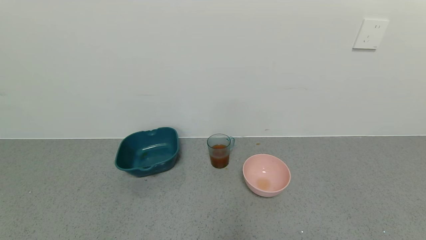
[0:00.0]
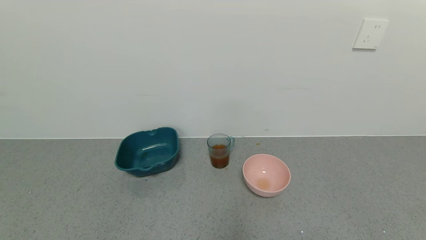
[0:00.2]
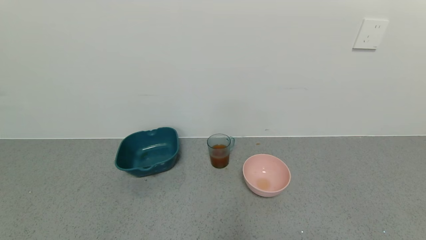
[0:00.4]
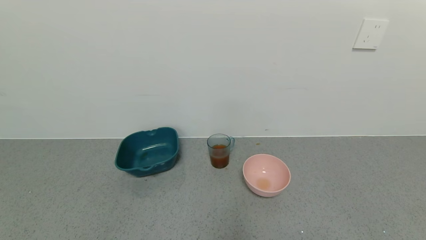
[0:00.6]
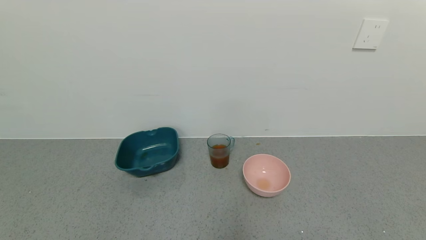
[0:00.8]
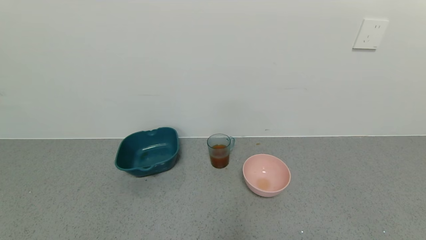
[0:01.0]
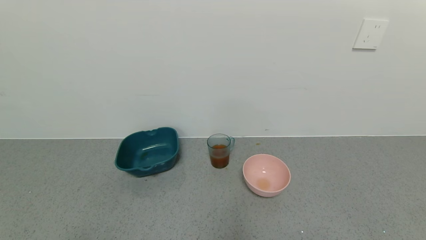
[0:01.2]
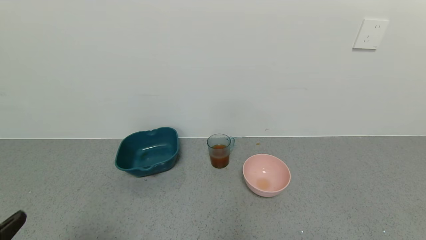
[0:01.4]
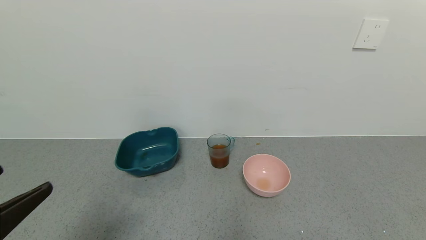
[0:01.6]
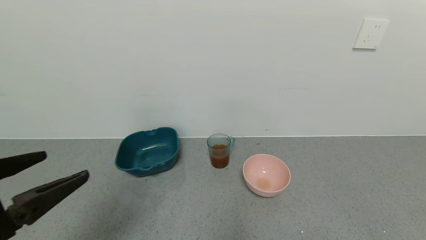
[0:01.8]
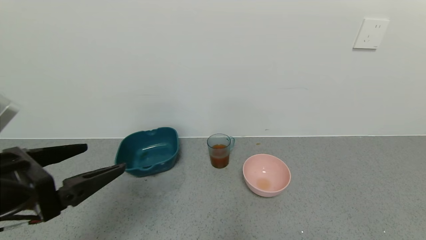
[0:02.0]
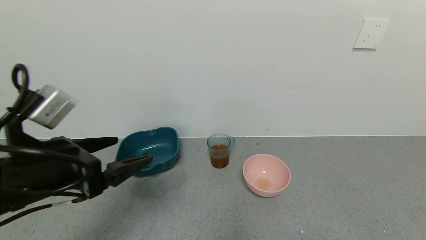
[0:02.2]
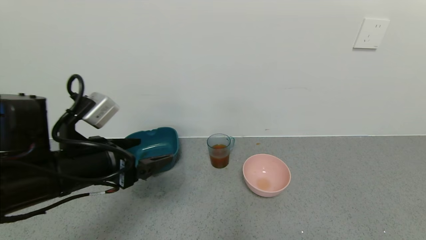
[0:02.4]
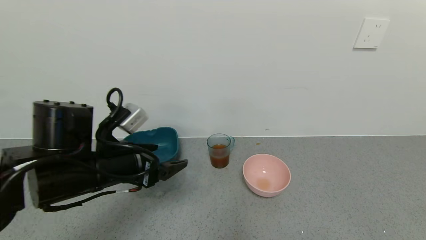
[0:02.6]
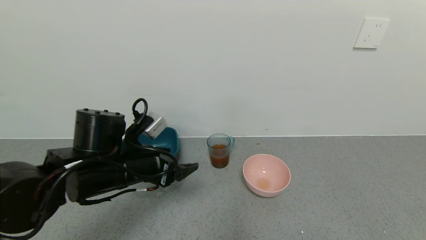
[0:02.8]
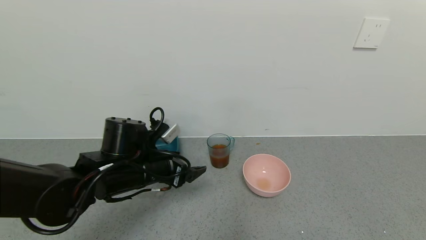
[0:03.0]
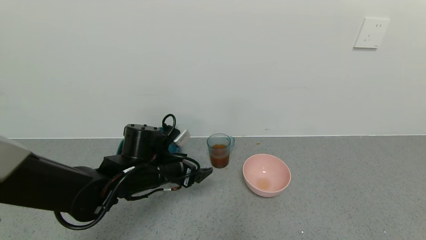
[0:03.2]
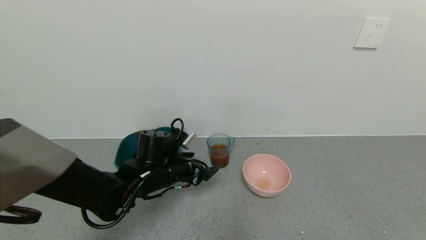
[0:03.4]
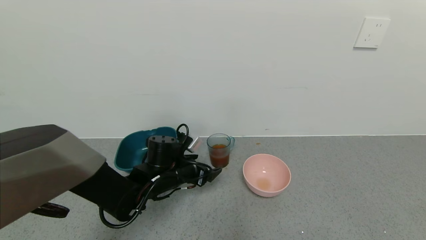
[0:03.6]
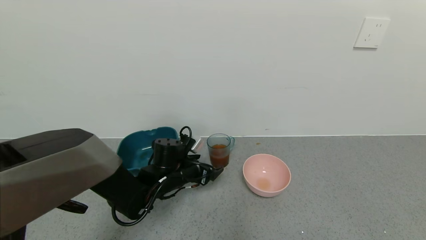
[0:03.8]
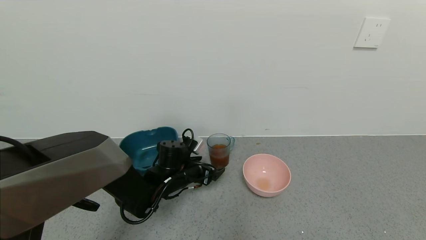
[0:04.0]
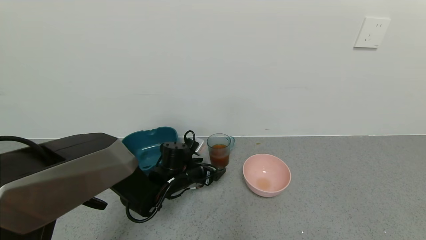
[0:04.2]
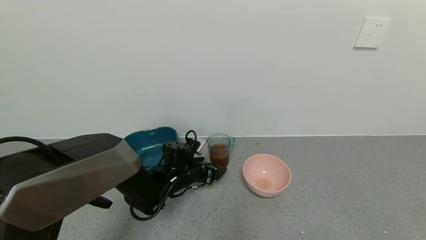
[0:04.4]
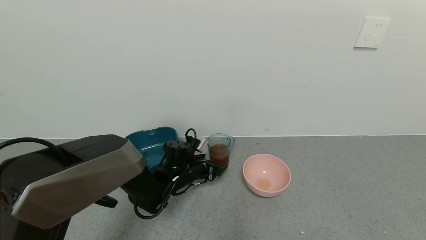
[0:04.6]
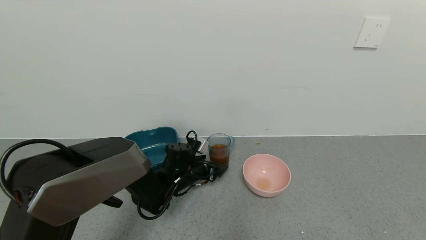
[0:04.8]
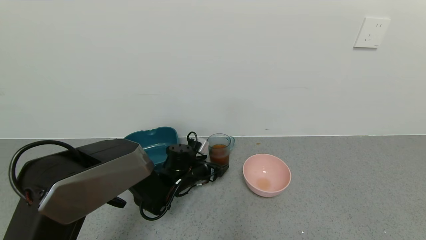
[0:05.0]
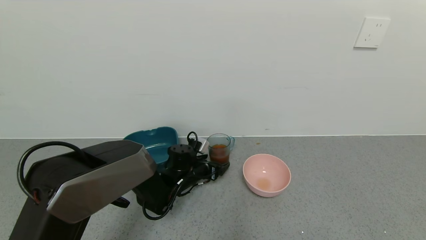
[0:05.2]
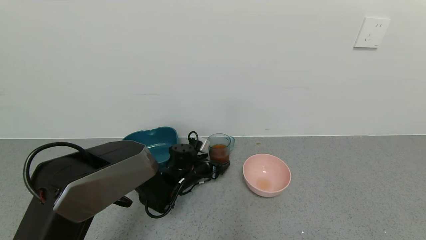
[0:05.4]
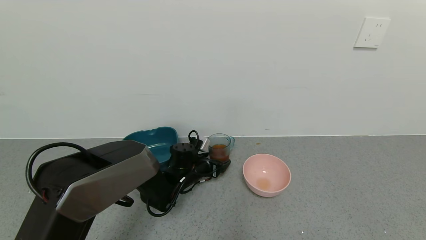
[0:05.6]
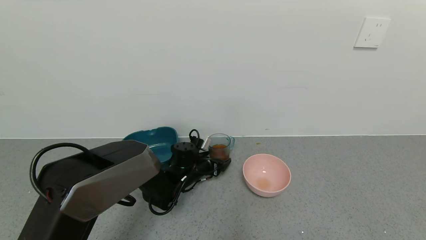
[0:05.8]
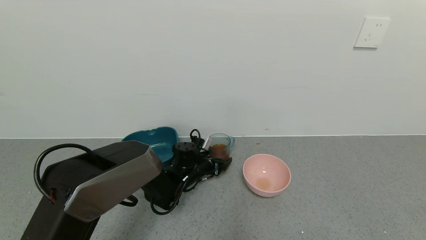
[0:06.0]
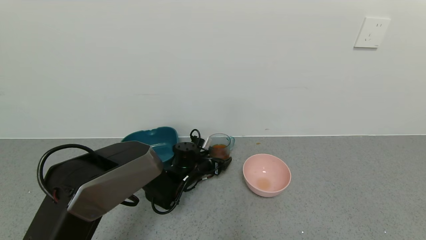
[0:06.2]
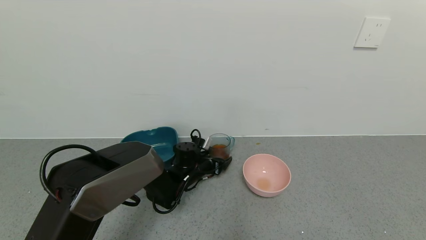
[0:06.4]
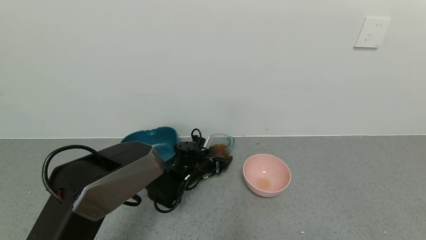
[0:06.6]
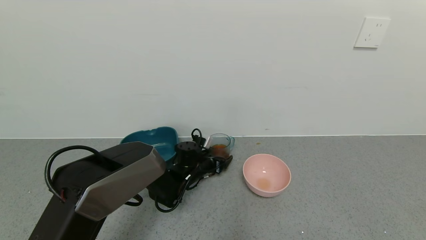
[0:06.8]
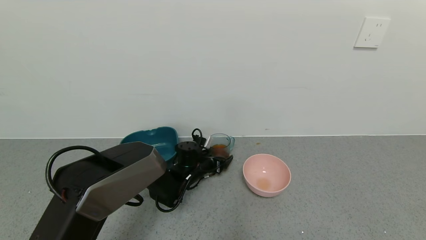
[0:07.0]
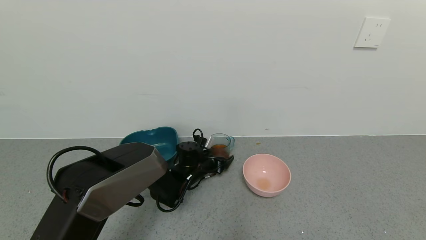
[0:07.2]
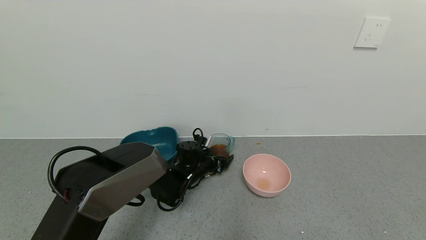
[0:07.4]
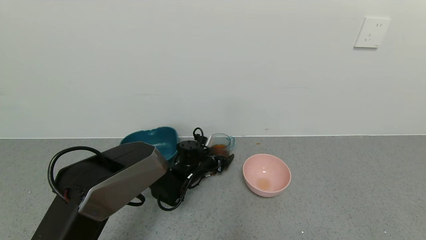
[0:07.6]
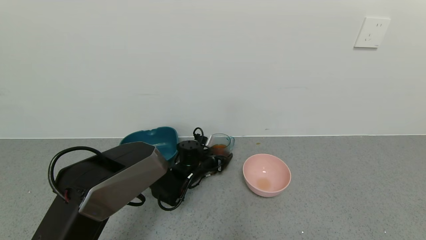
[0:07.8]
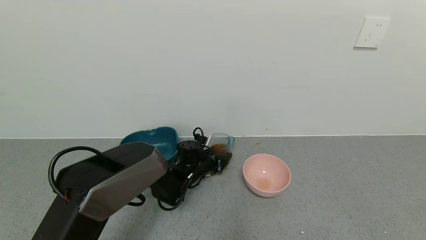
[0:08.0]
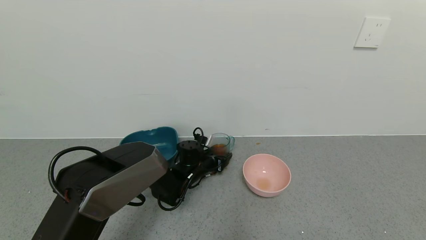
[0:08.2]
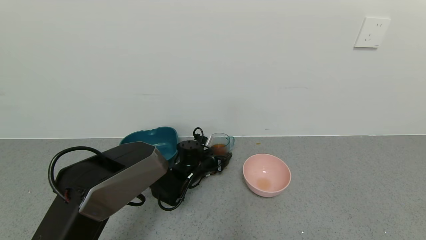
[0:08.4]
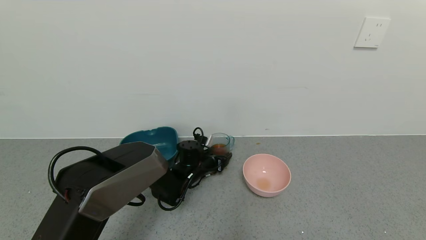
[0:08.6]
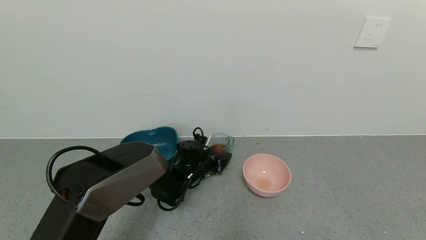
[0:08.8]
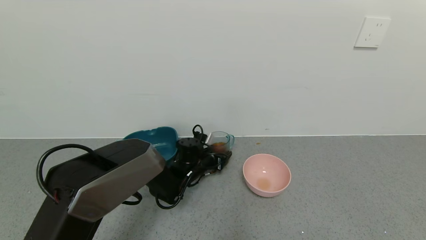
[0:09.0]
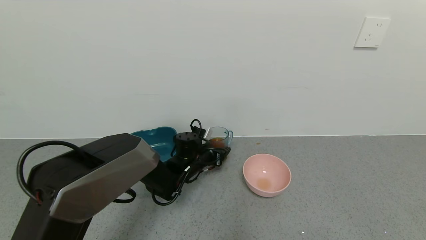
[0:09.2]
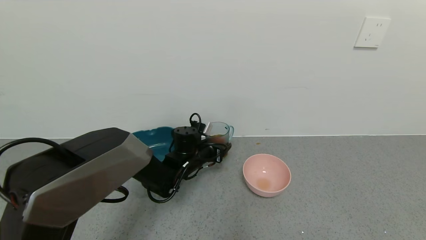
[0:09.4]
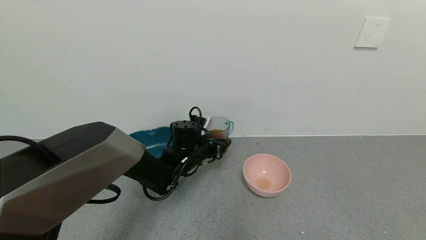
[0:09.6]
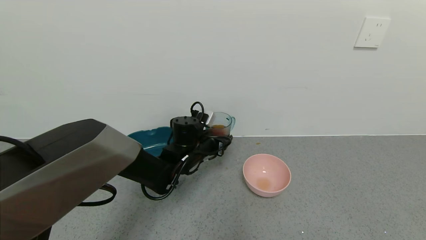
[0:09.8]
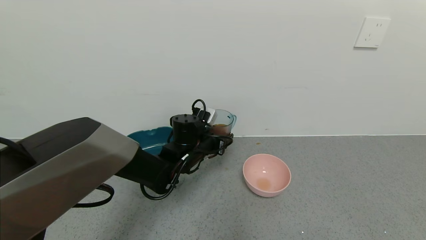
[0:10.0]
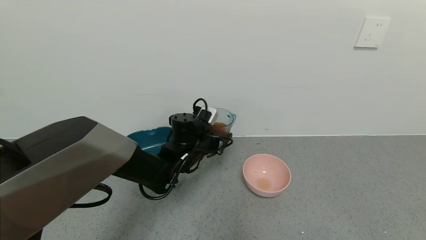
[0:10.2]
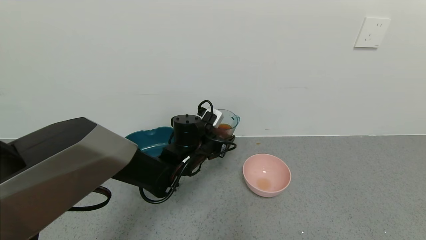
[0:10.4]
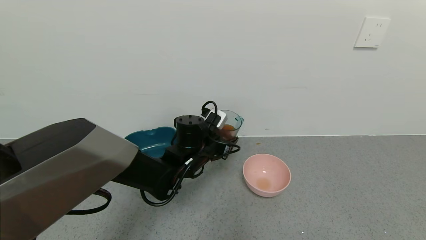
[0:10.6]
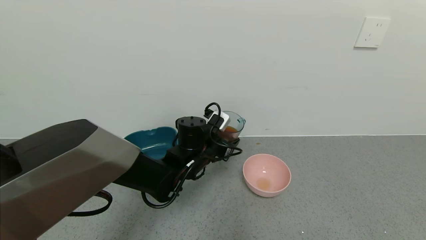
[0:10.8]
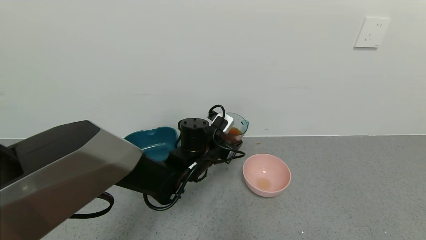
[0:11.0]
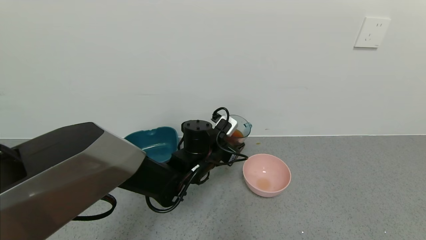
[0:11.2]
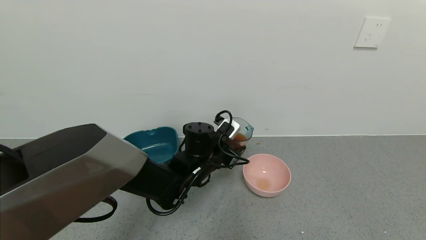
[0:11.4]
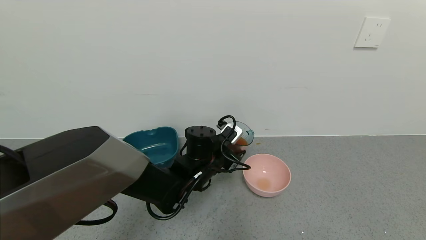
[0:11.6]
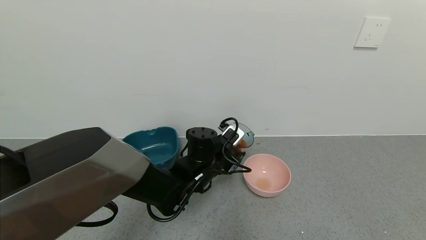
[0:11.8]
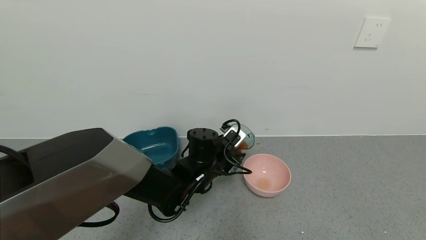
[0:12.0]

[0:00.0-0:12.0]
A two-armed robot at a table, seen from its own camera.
Task of the whole recording: use a gripper to pick up the cup and pour the liquid into a bowl or tray.
Step, 0:00.0 to 0:09.4: Pick up blue cup filled with tea with left gripper.
0:00.0 to 0:01.6: The left gripper goes some 20 cm upward and forward.
0:01.6 to 0:03.0: The left gripper shifts roughly 25 cm forward, to the right and downward.
0:03.0 to 0:04.4: The left gripper heads downward and forward, covering about 15 cm.
0:04.4 to 0:06.0: There are only small adjustments of the grippers.
0:06.0 to 0:07.6: The grippers stay close to where they were, moving slightly.
0:07.6 to 0:09.0: The left gripper closes.
0:09.0 to 0:10.4: The left gripper heads upward, covering approximately 10 cm.
0:10.4 to 0:12.0: The grippers stay close to where they were, moving slightly.

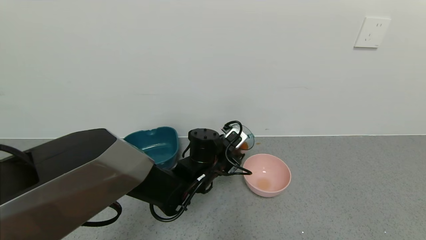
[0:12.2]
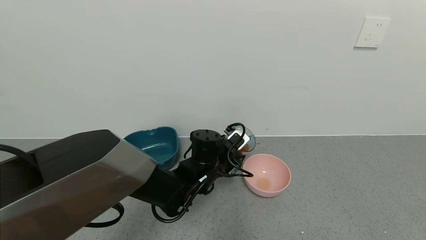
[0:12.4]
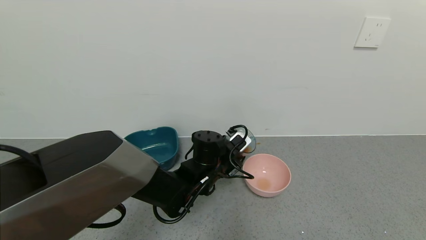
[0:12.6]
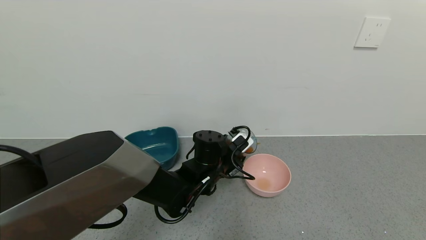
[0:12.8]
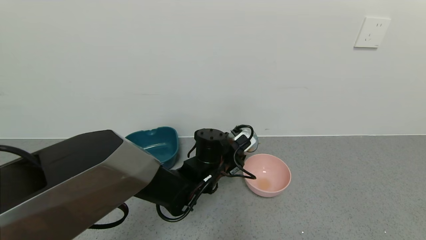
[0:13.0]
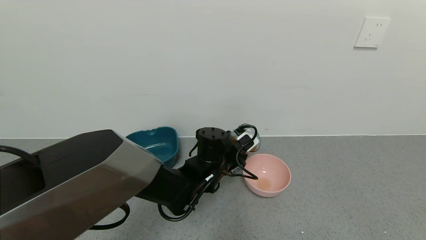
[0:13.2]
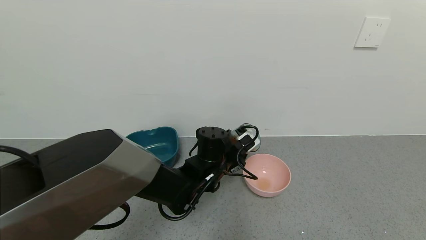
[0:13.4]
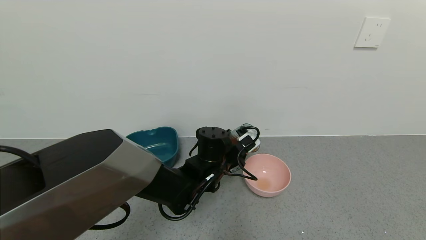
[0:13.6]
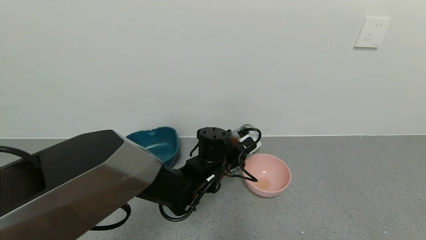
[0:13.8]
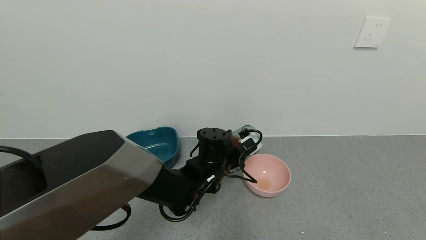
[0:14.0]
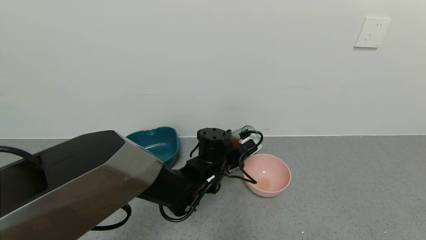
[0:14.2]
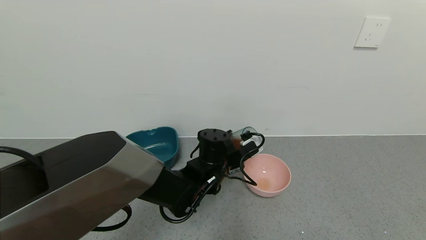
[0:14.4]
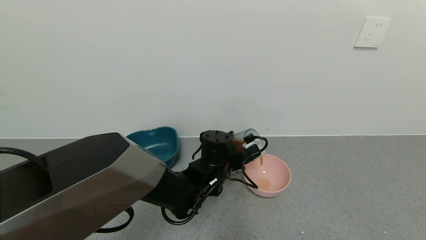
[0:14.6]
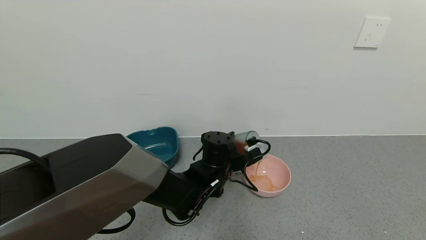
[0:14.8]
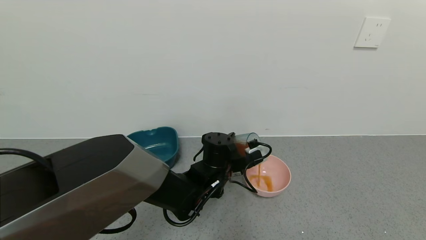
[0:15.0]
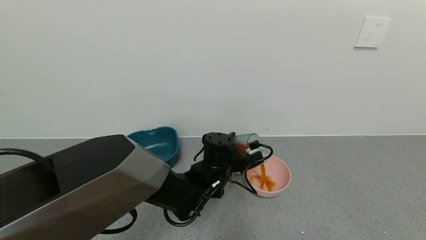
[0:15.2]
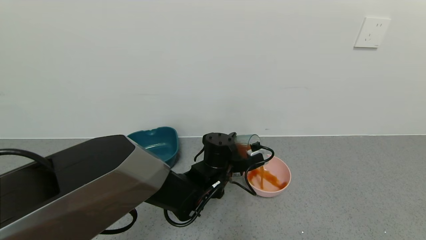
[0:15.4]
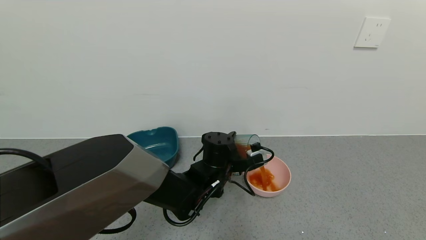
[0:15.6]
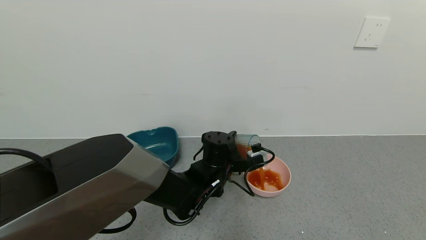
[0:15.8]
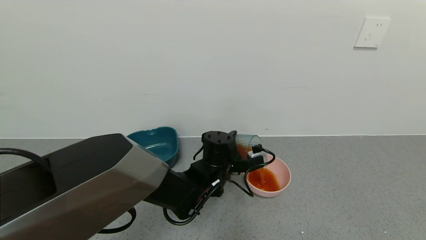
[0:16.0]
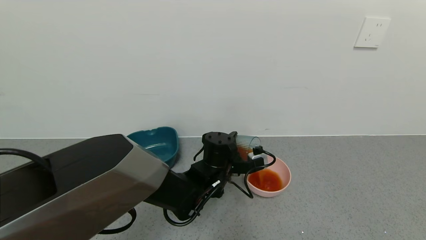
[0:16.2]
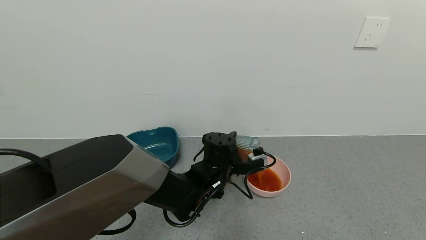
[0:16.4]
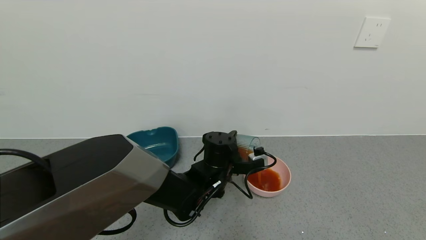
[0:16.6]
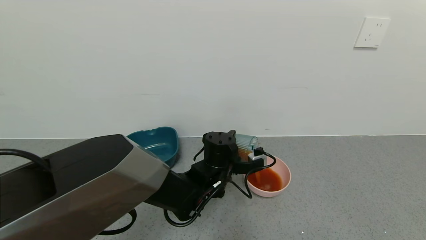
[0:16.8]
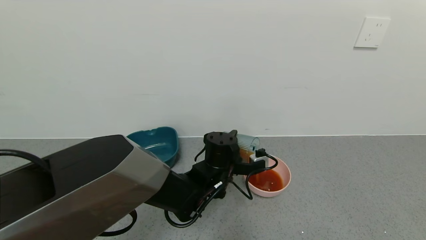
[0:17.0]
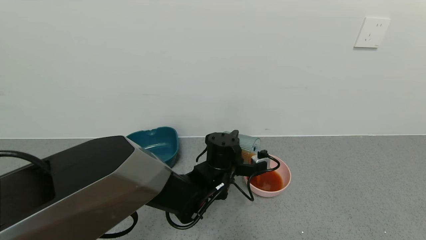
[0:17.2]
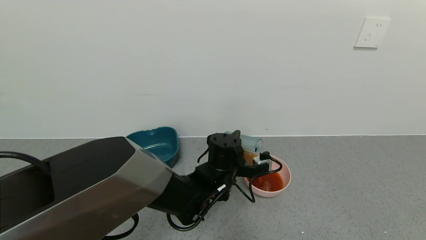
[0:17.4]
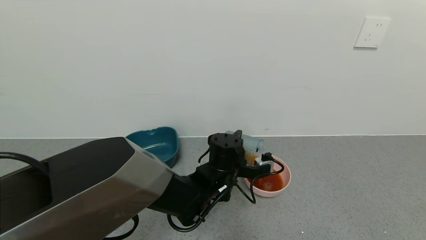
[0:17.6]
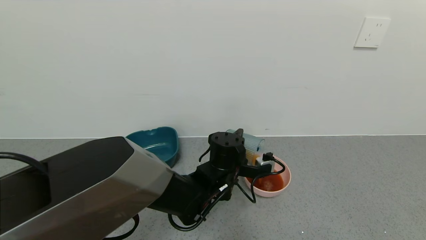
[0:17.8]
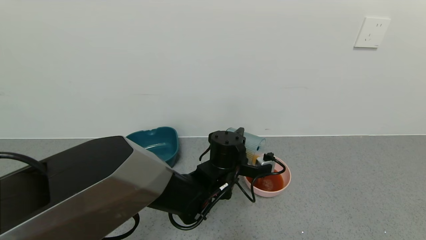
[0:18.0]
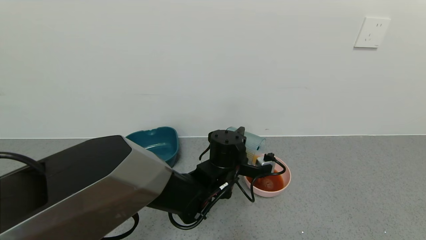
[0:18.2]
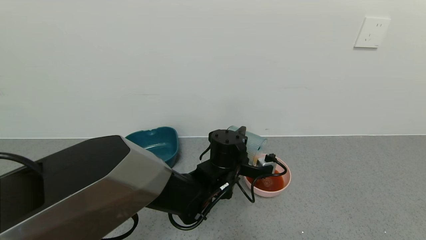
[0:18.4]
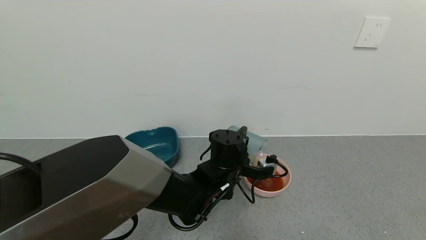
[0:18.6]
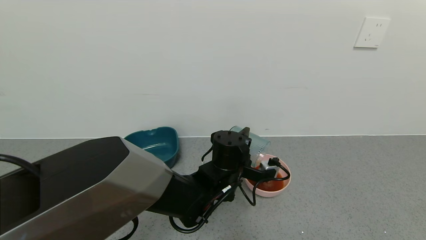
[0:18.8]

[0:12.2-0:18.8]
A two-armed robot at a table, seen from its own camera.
Task of the whole recording: use a gripper to pick up the cup and pour the liquid into a bowl or tray.
0:12.2 to 0:13.8: The grippers stay close to where they were, moving slightly.
0:13.8 to 0:15.4: The grippers move only a little.
0:15.4 to 0:17.2: The grippers move only a little.
0:17.2 to 0:18.8: The grippers stay close to where they were, moving slightly.
